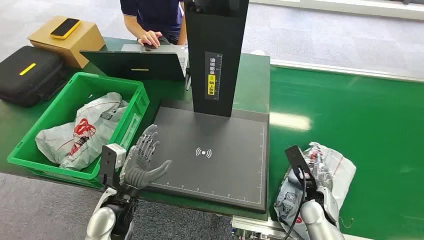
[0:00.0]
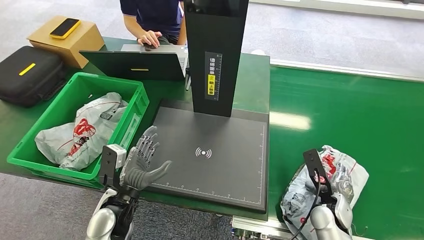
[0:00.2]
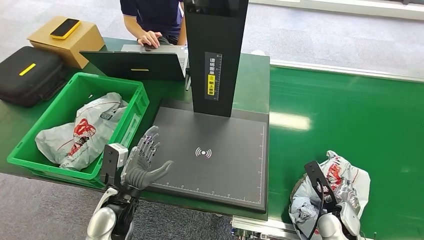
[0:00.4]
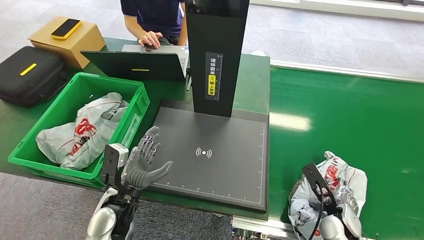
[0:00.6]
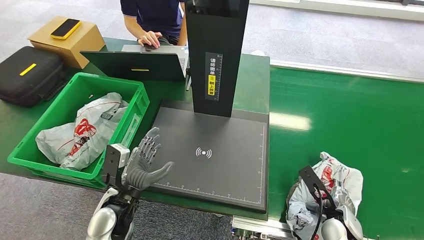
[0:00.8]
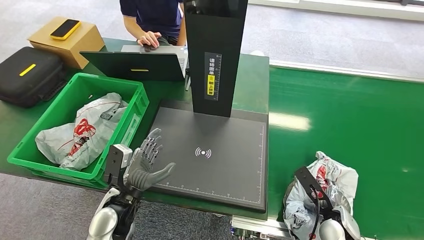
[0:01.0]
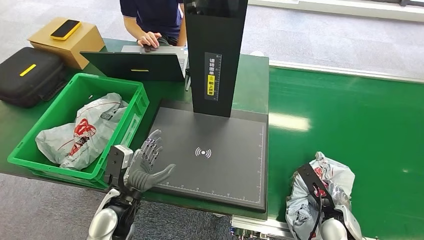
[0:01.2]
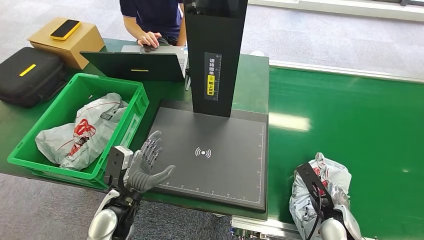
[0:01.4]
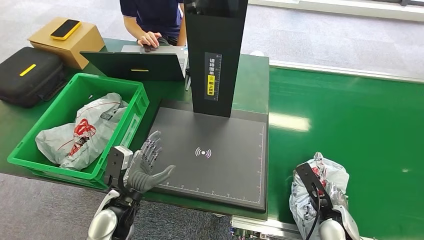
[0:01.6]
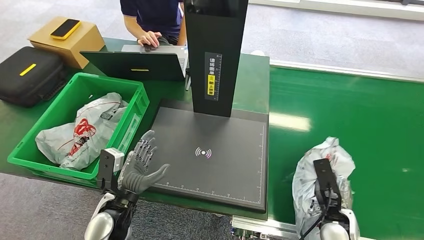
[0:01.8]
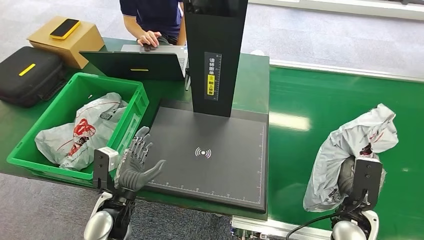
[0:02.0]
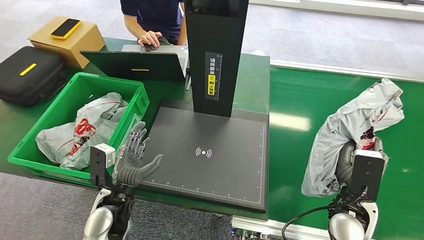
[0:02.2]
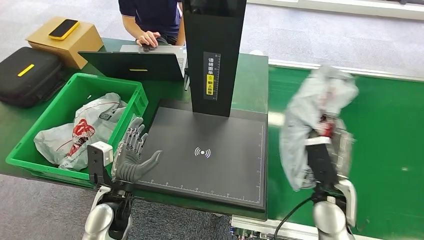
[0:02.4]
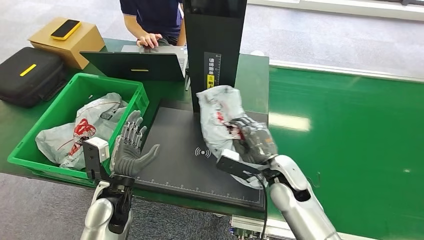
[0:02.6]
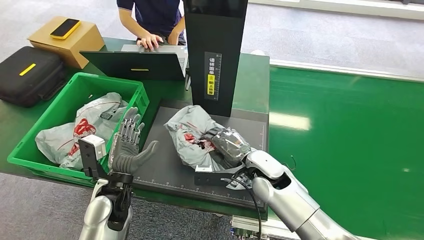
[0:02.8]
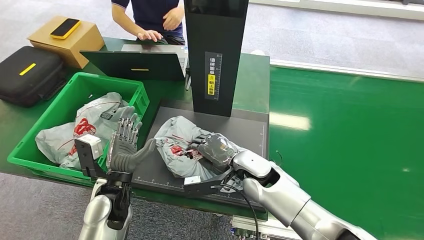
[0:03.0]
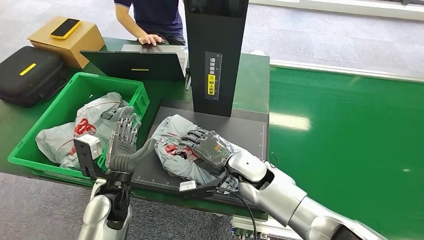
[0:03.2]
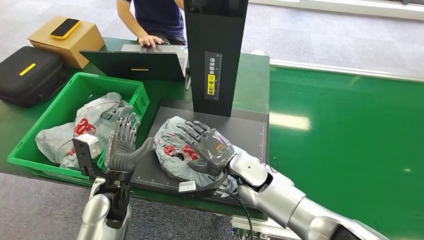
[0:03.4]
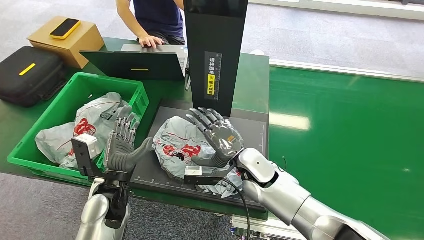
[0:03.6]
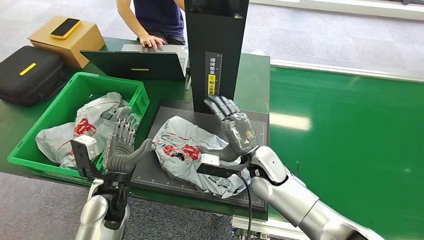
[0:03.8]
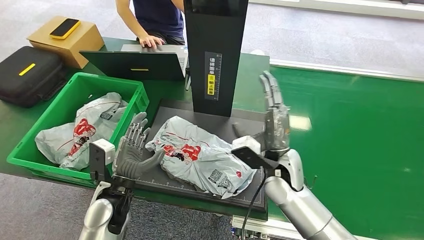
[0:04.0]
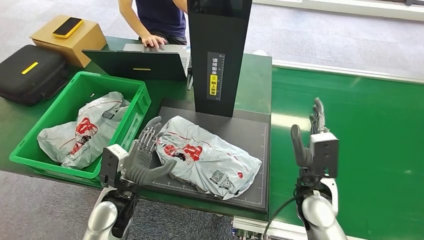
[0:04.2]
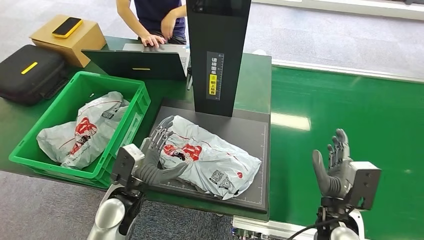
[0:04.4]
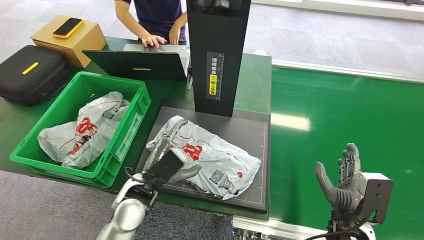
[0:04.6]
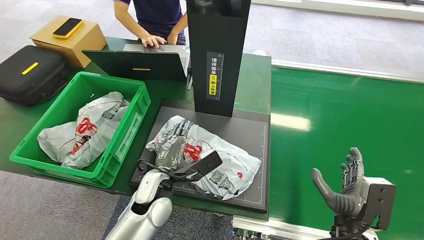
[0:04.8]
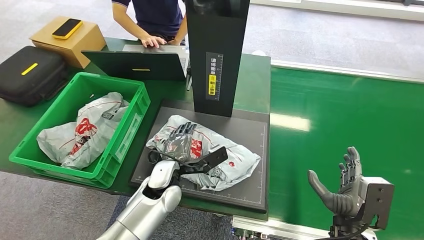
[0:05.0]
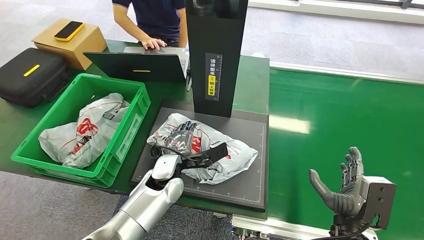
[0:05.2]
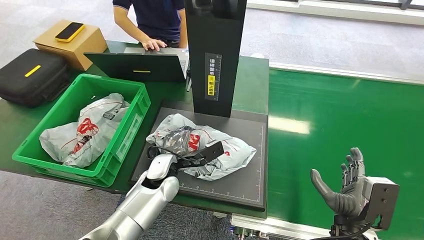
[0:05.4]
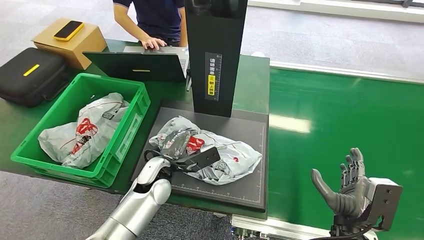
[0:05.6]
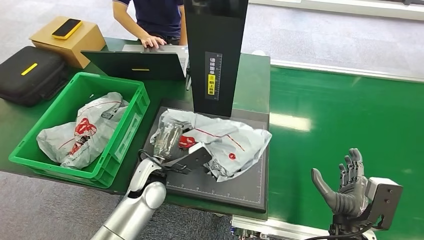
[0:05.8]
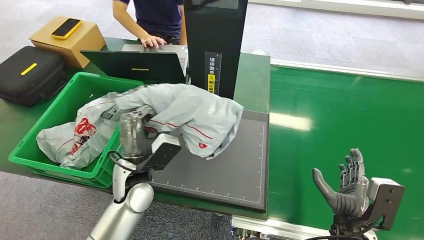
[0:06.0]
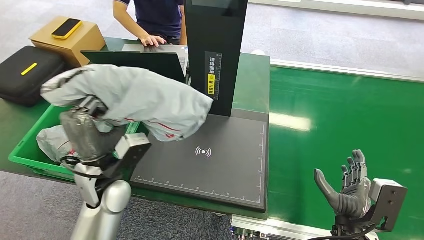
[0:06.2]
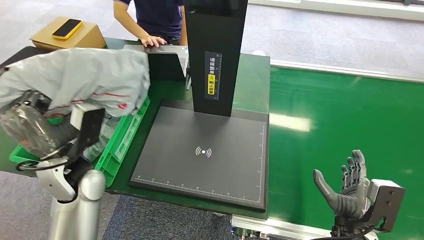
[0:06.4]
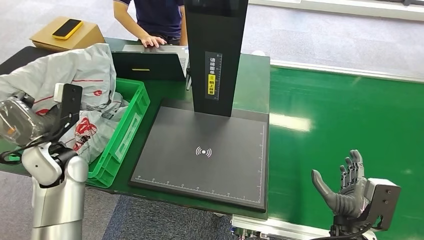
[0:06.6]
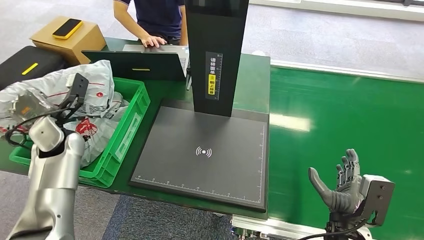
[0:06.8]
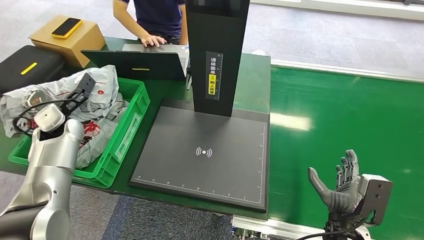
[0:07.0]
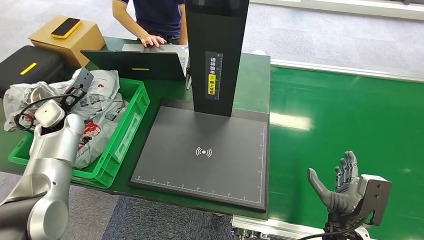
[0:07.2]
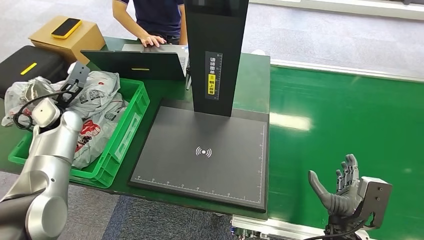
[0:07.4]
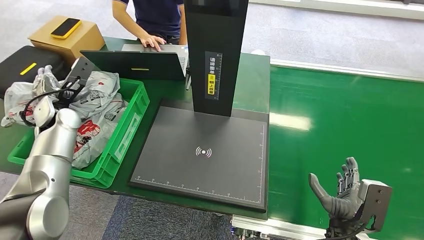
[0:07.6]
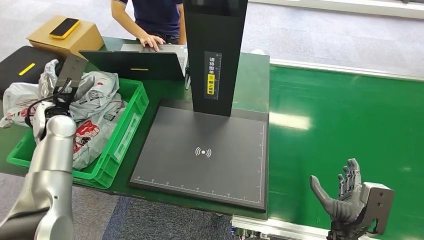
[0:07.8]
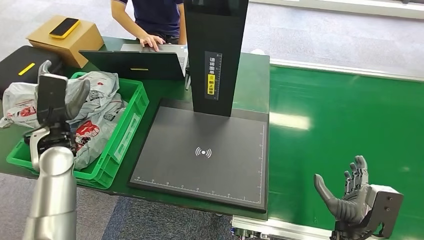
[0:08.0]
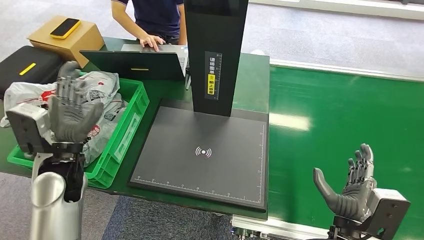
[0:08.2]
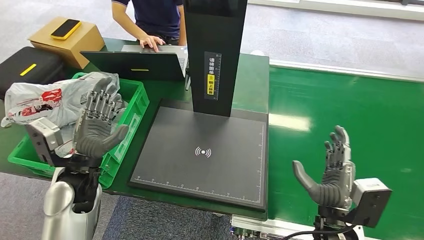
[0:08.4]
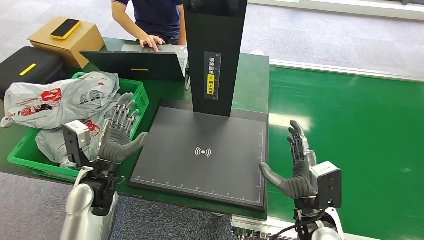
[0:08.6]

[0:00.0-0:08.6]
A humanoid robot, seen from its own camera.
Step, 0:00.0 to 0:02.2: Pick up the package from the conveyor belt.
Step, 0:02.6 to 0:04.4: Place the package onto the inbound machine.
Step, 0:04.6 to 0:06.6: Pick up the package from the inbound machine.
Step, 0:06.8 to 0:08.6: Place the package into the parcel locker.
